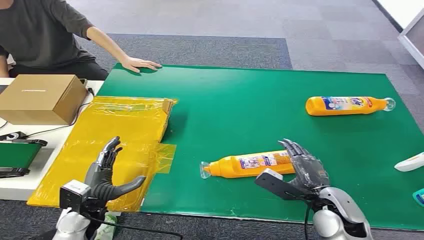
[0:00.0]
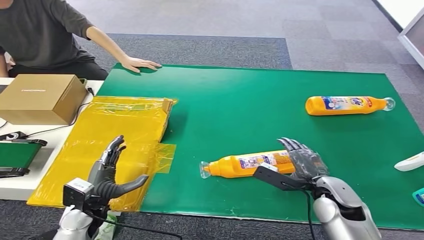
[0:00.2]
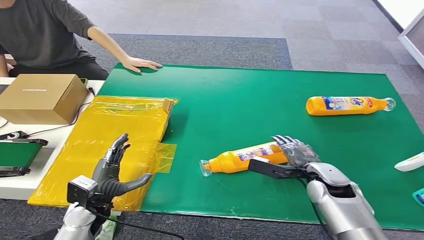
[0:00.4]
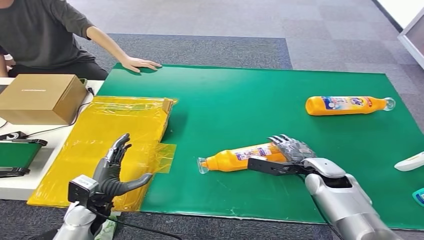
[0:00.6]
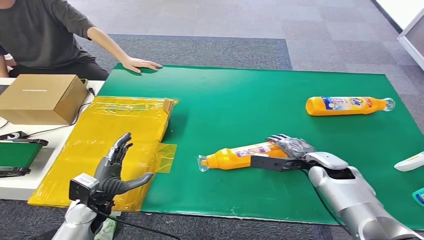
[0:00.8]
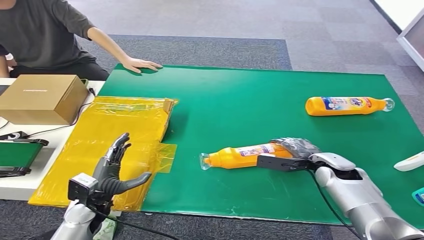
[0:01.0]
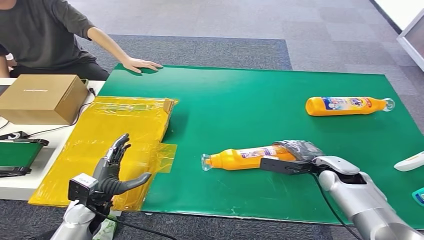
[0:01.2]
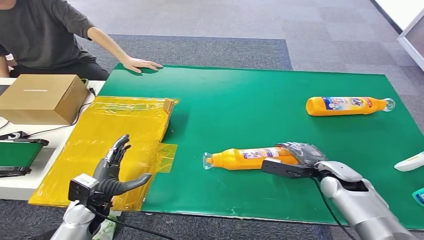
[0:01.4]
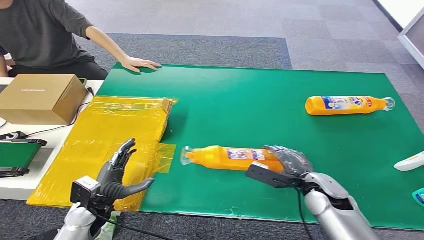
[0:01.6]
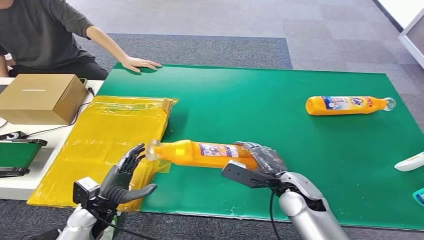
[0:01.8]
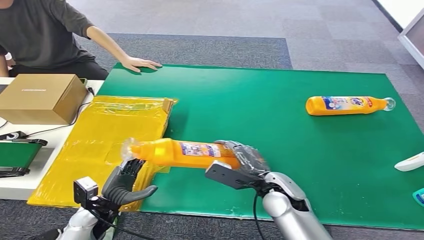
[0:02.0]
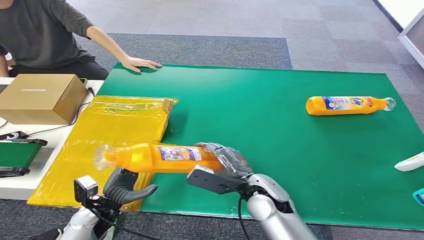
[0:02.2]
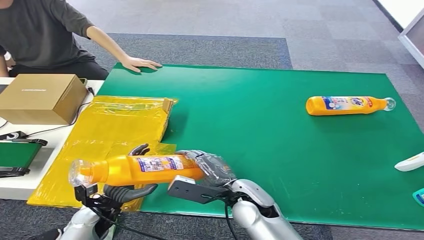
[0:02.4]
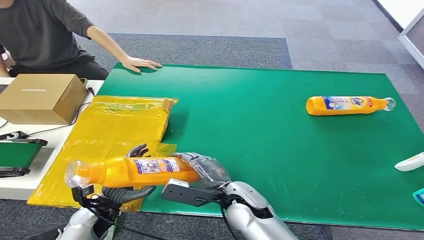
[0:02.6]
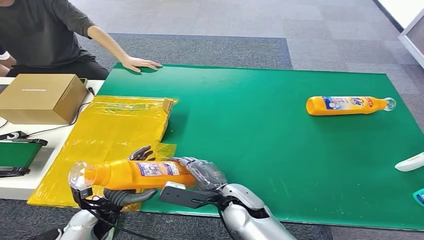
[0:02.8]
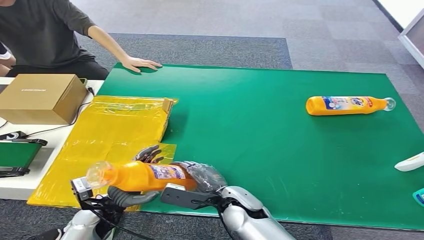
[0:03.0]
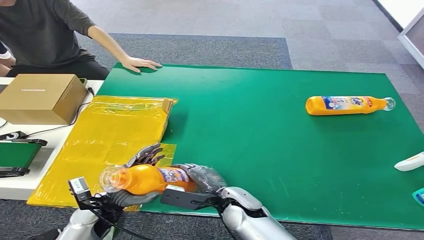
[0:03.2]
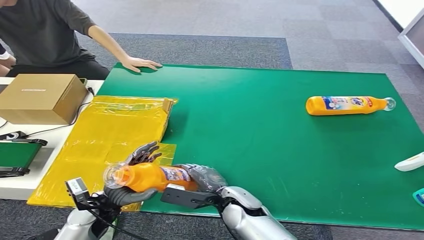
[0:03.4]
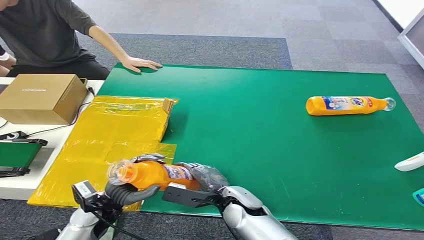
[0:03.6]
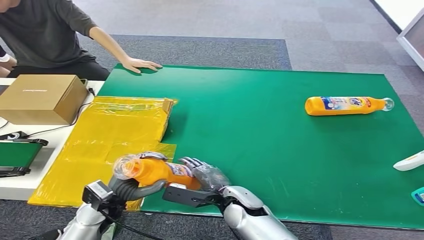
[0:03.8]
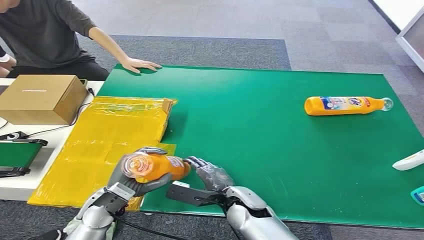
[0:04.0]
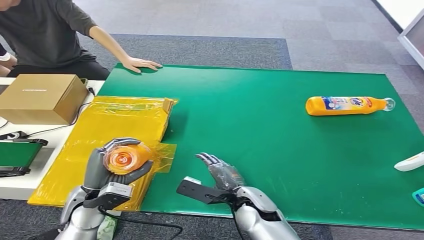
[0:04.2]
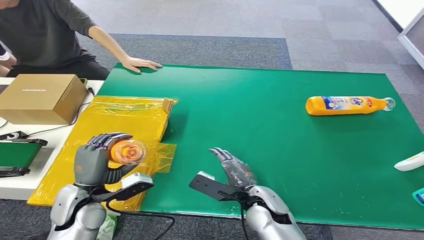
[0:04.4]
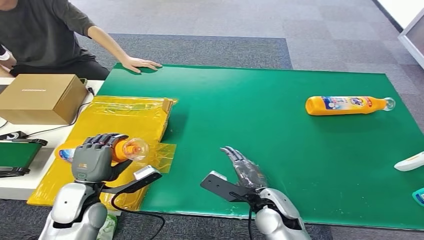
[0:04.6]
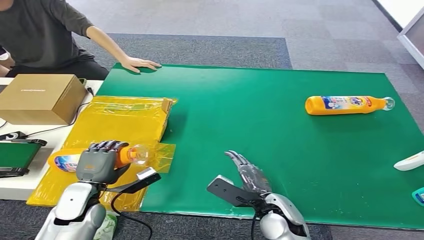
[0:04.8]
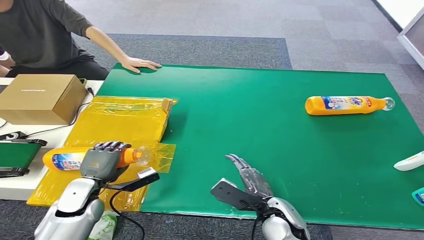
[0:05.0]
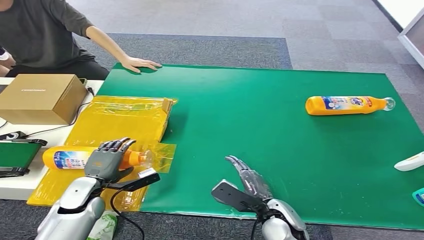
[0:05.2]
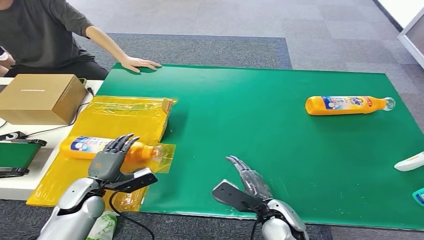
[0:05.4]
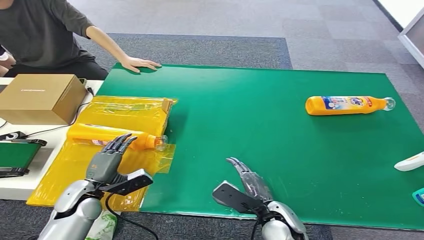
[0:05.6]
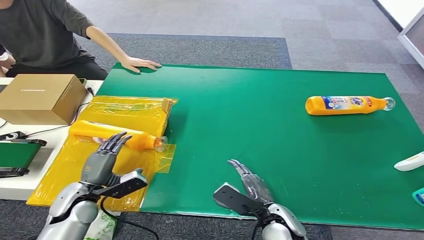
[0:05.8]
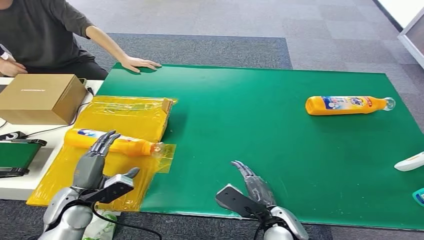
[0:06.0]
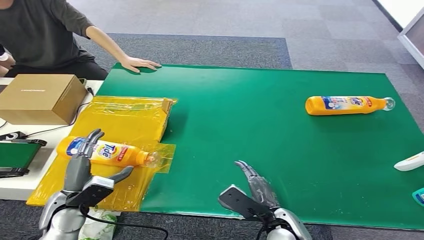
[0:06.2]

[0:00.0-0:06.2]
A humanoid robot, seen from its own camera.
Step, 0:00.0 to 0:01.6: Pick up the bottle from the table.
Step, 0:01.8 to 0:06.2: Turn the bottle to the front side.
0:01.6 to 0:03.2: The right hand goes about 20 cm to the left.
0:03.2 to 0:04.6: The right hand shifts about 5 cm to the right, while the left hand heads upward, covering about 5 cm.
0:04.6 to 0:06.2: The right hand shifts by about 5 cm.
